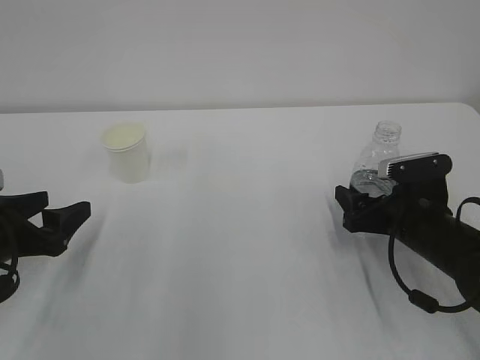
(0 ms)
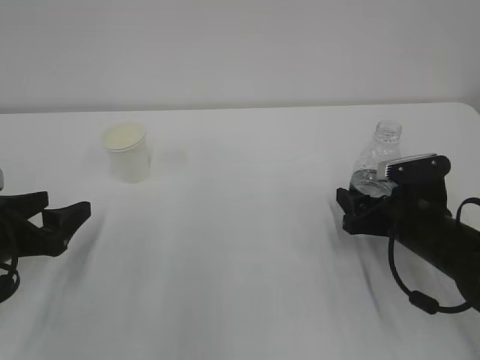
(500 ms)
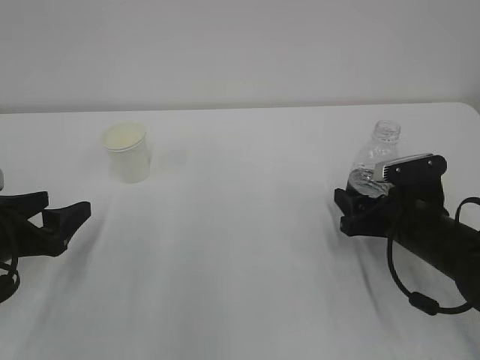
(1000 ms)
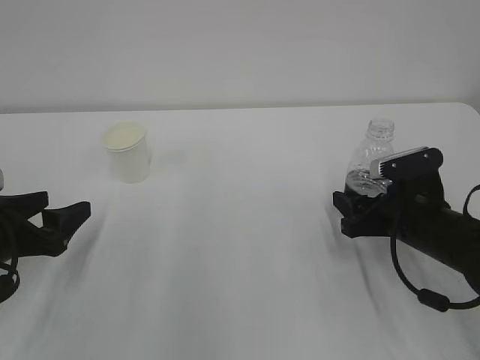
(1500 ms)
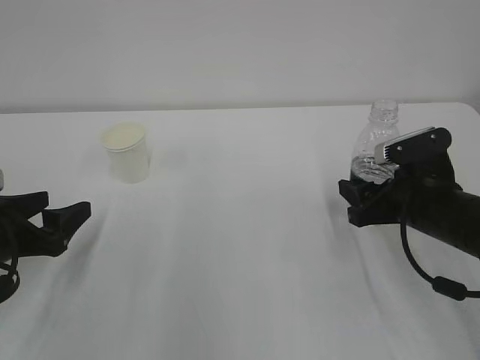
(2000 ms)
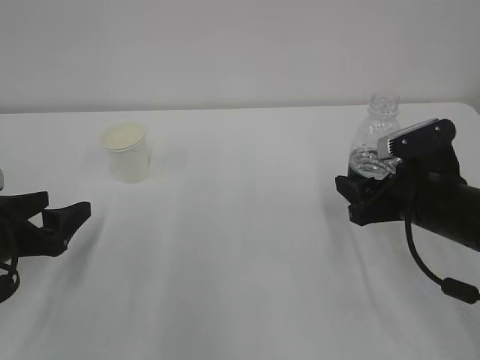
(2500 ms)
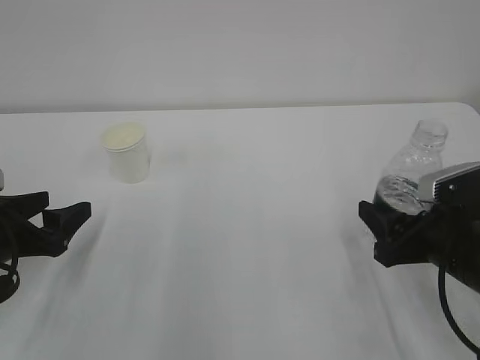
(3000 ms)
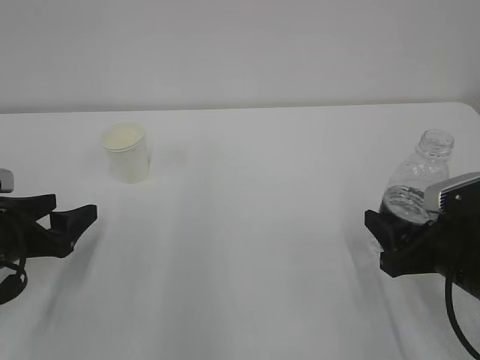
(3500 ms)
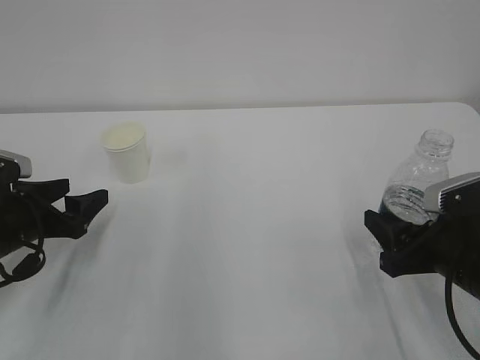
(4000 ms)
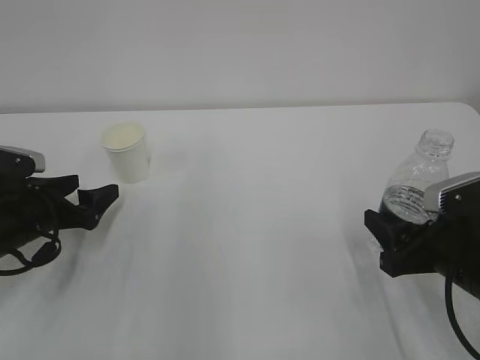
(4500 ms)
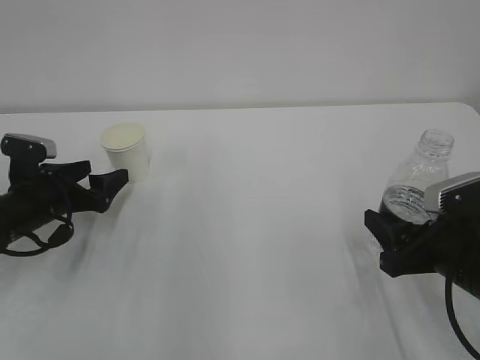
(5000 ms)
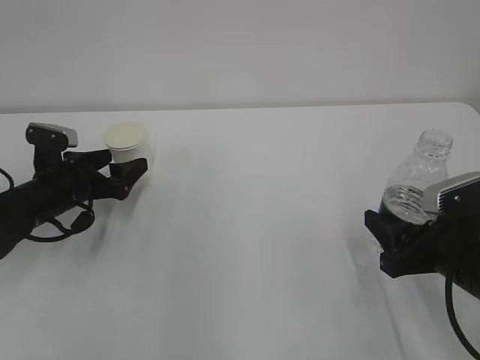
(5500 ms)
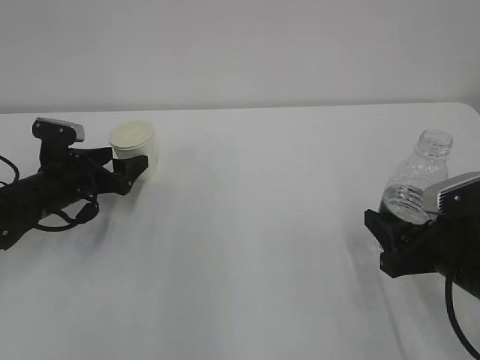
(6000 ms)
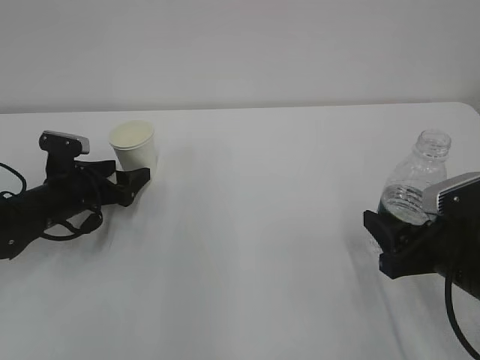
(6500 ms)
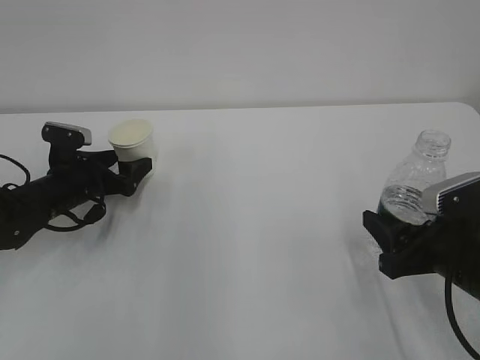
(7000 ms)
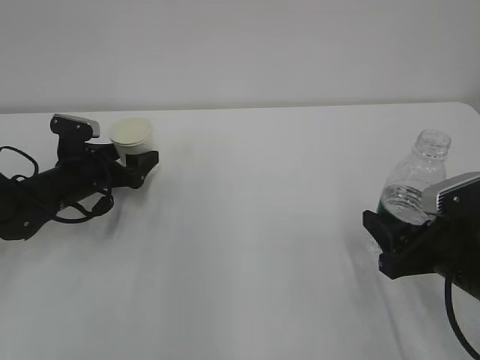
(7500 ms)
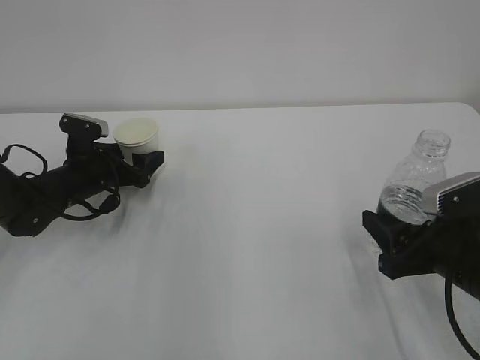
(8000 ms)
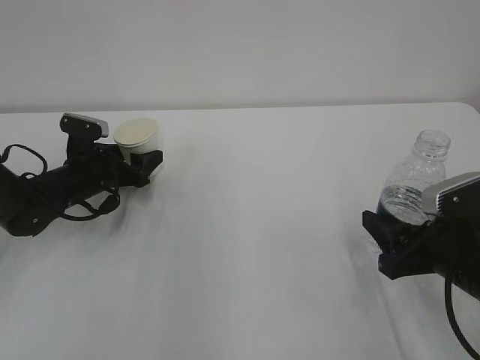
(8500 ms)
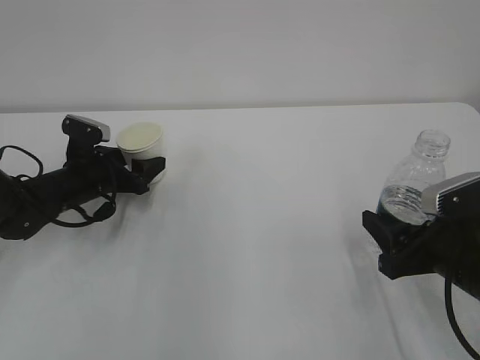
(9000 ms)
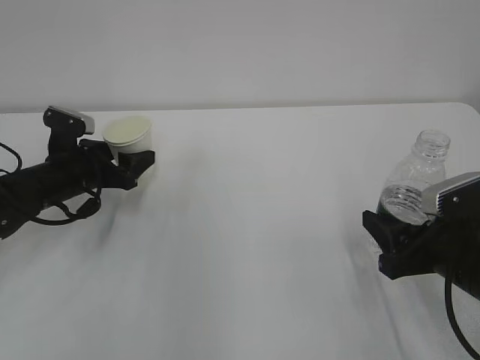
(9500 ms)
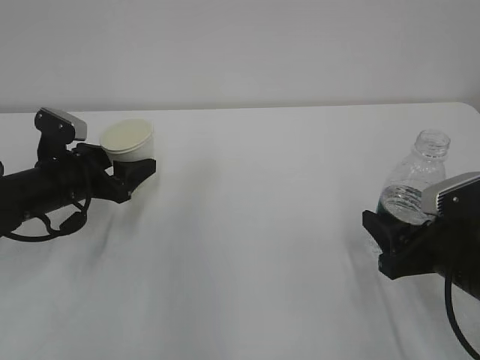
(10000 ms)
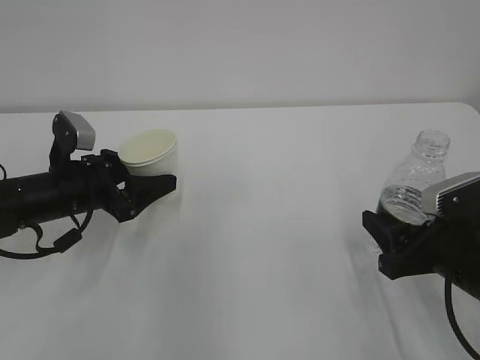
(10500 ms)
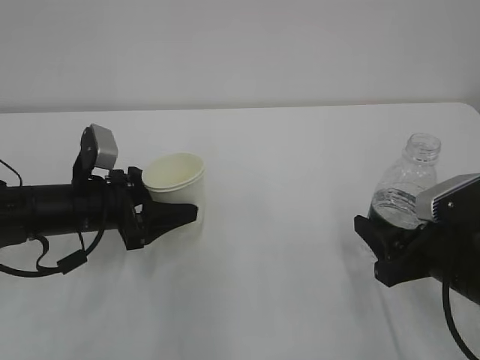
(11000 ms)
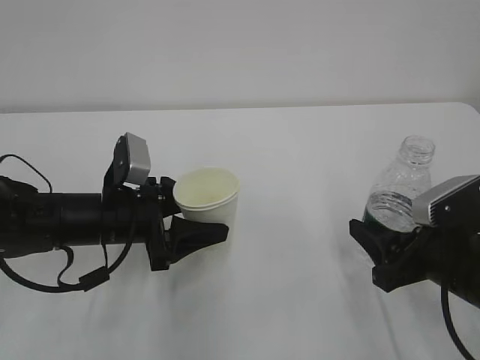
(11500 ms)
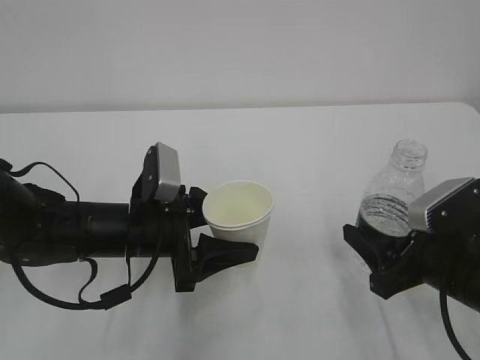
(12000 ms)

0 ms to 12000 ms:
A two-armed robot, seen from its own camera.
0 ms to 2000 ms: The right gripper closes.
2000 ms to 4000 ms: The right gripper travels backward by about 10 cm.
4000 ms to 6000 ms: The left gripper goes some 10 cm forward.
6000 ms to 8000 ms: The grippers make only small movements.
8000 ms to 10000 ms: The left gripper moves backward, roughly 5 cm.
10000 ms to 12000 ms: The left gripper shifts roughly 15 cm to the right and backward.

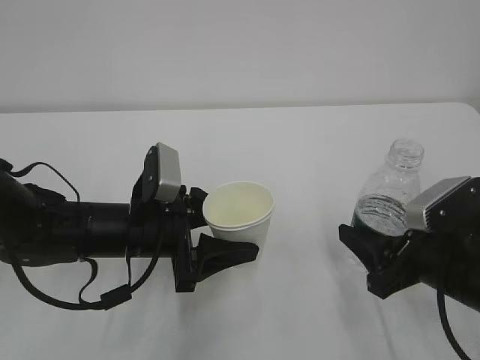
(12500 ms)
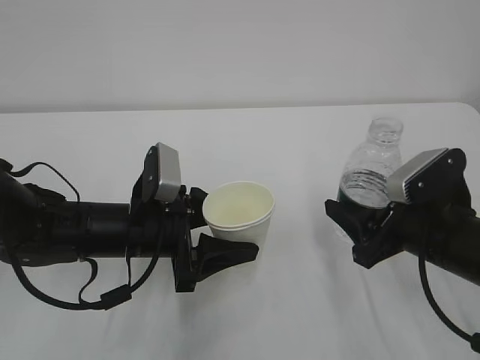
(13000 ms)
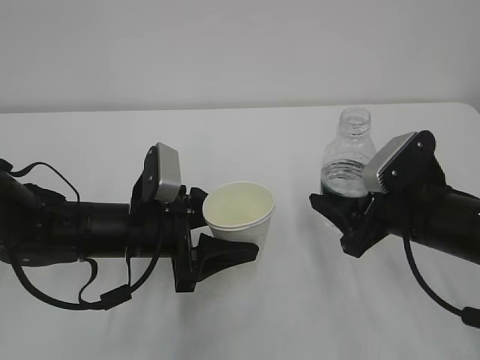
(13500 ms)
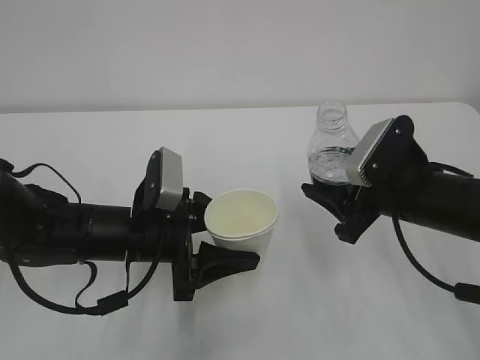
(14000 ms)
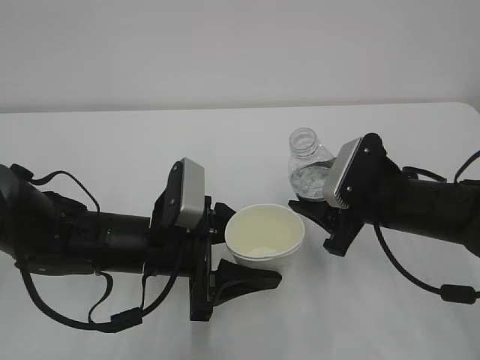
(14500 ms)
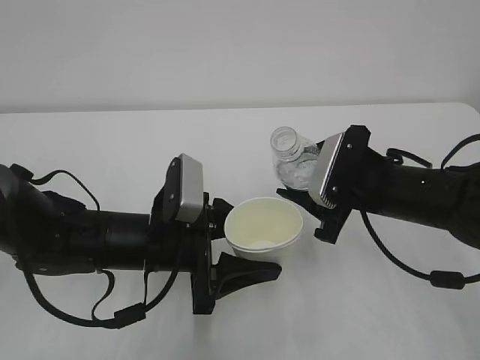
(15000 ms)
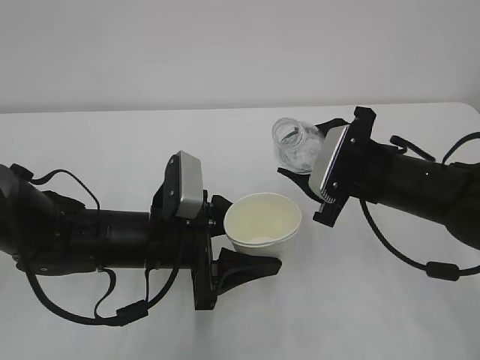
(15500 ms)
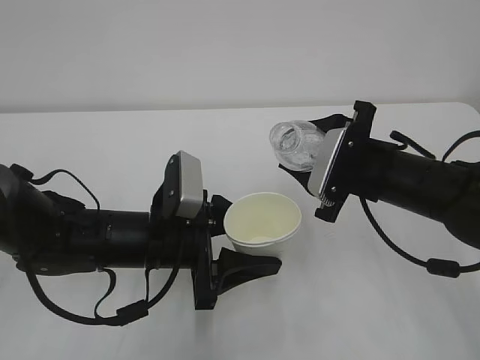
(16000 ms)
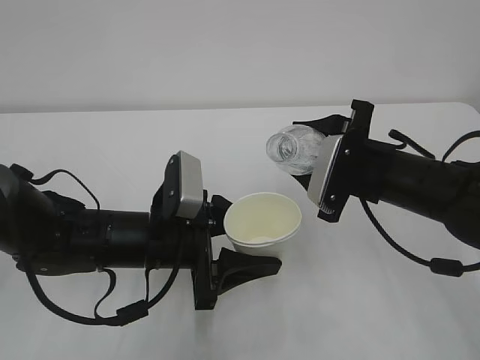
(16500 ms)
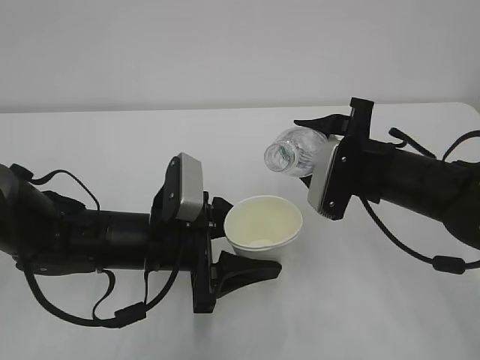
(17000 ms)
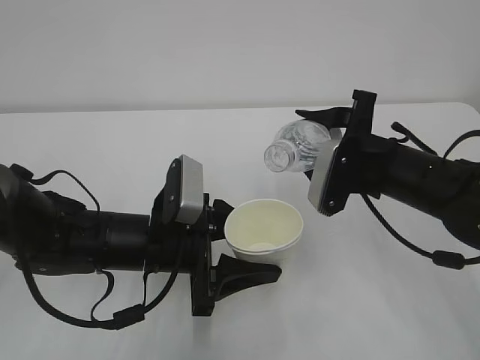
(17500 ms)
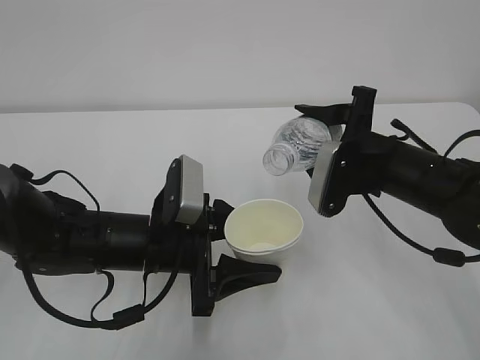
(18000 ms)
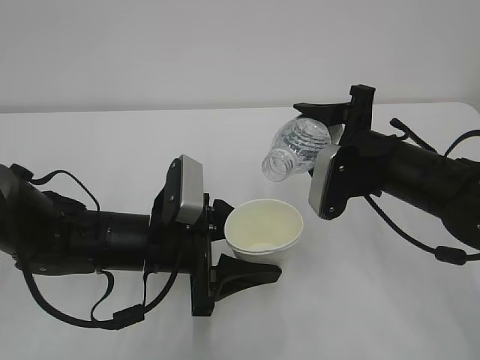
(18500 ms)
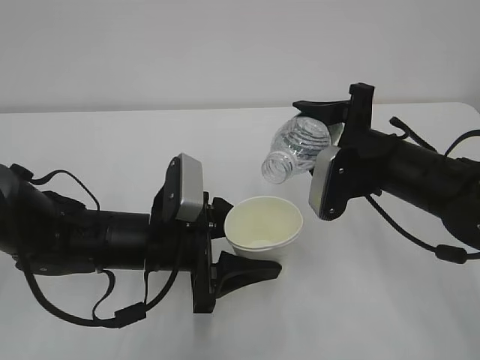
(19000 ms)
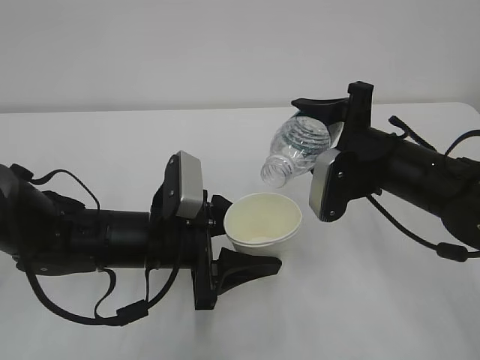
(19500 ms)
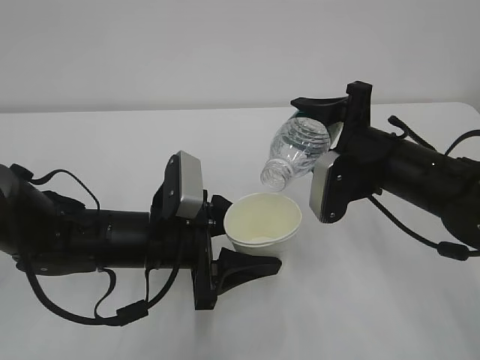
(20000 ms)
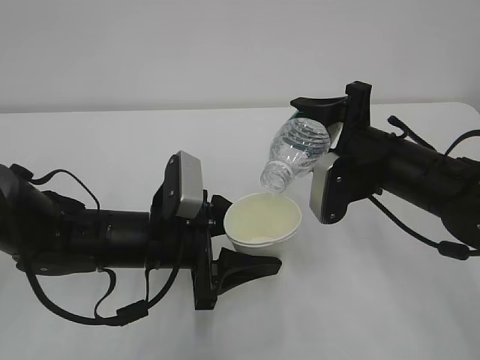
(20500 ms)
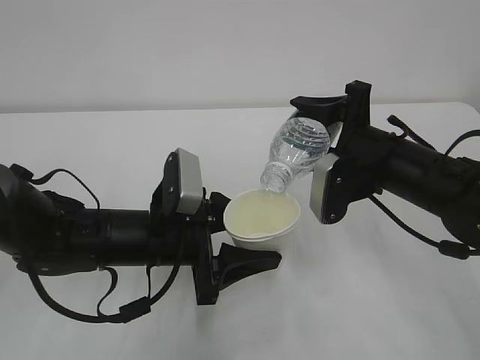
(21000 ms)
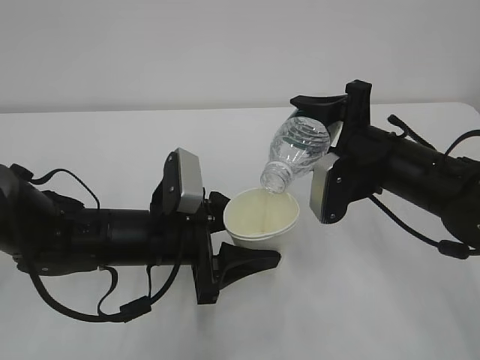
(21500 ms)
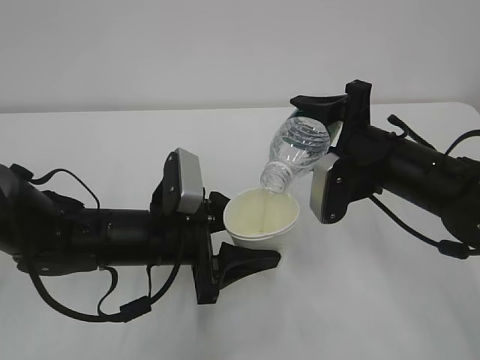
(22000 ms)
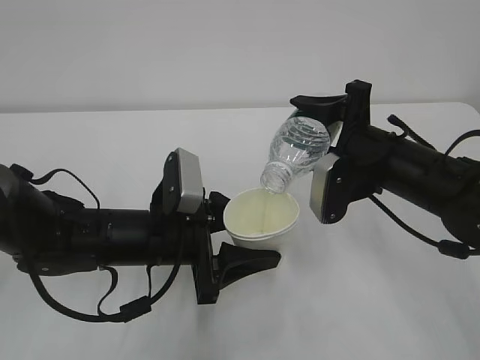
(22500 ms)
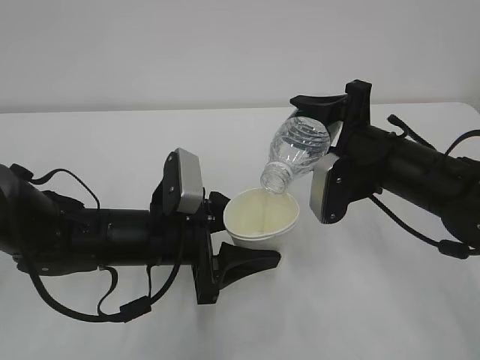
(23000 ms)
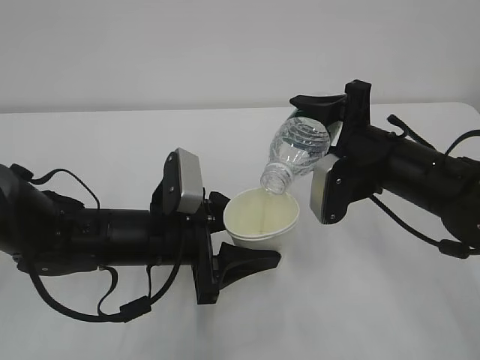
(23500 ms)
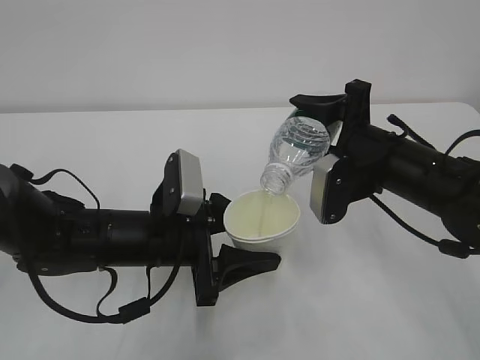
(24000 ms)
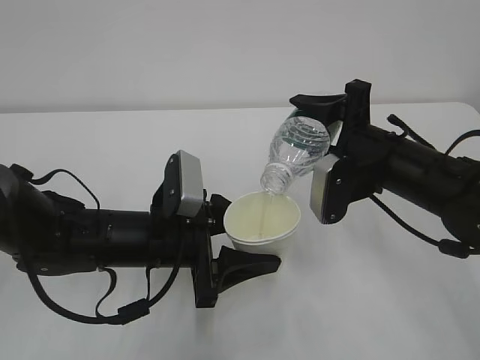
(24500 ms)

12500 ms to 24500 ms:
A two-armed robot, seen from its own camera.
12500 ms to 14500 ms: The right gripper shifts about 10 cm forward.
18500 ms to 20500 ms: The grippers stay close to where they were, moving slightly.
20500 ms to 24500 ms: The two grippers keep their place.

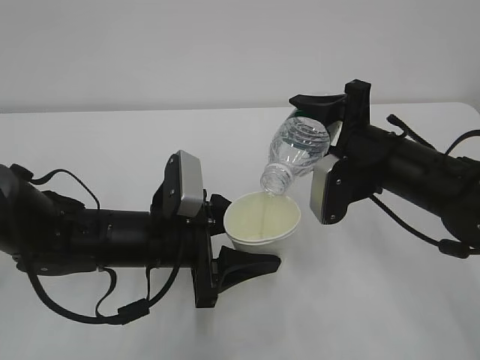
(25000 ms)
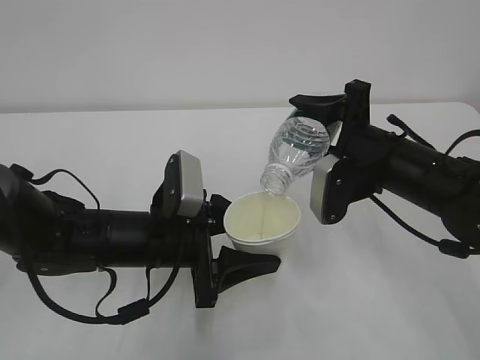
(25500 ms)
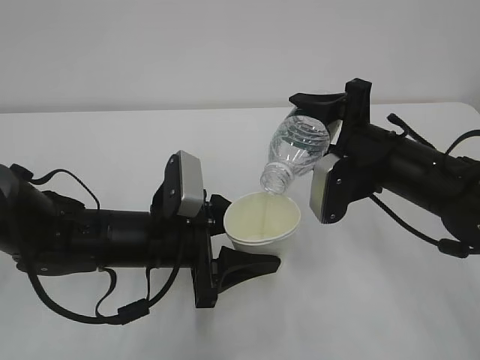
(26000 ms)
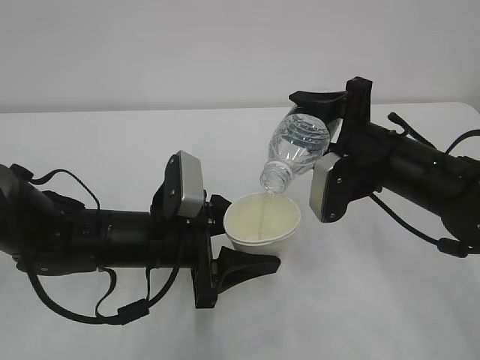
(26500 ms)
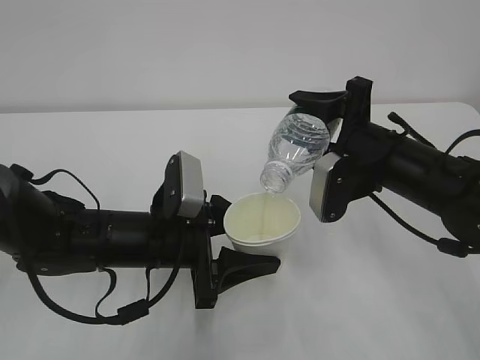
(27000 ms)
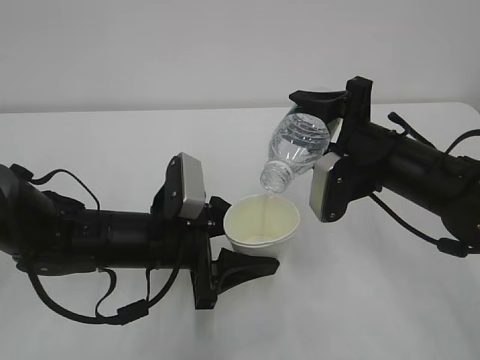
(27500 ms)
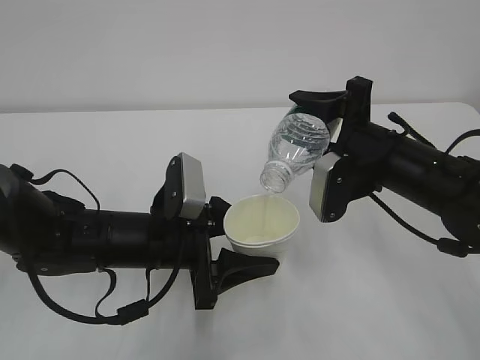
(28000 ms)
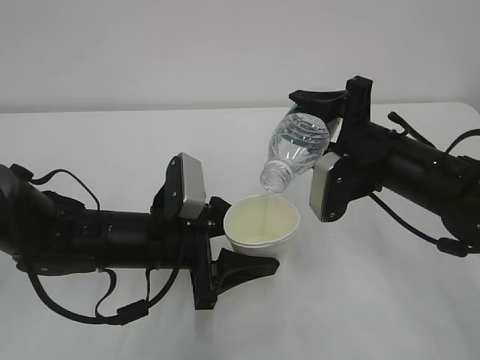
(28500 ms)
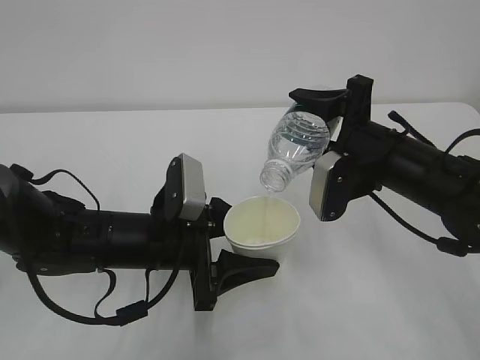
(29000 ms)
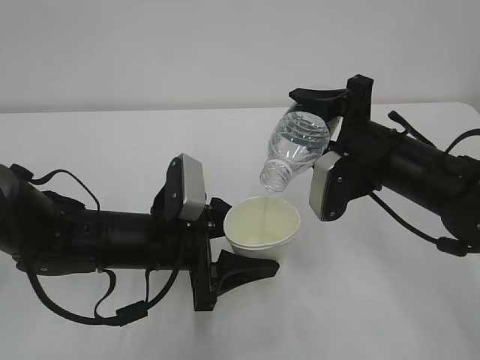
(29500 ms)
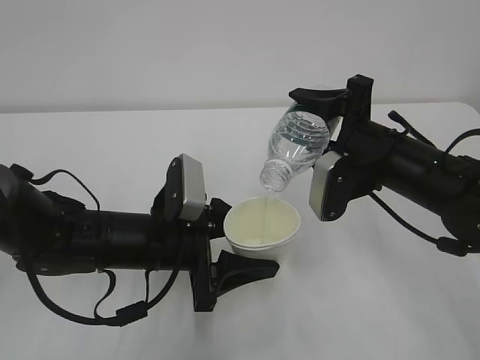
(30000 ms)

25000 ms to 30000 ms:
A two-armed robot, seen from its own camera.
25000 ms to 30000 ms: The two grippers keep their place.
